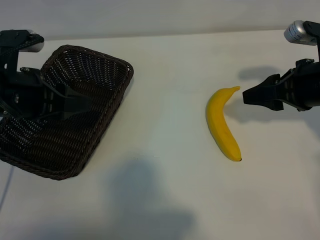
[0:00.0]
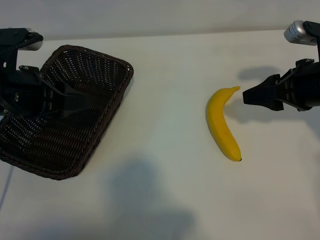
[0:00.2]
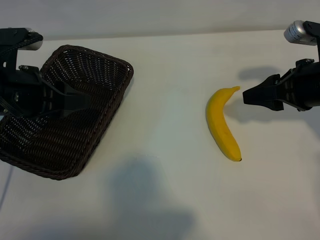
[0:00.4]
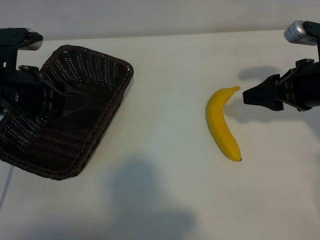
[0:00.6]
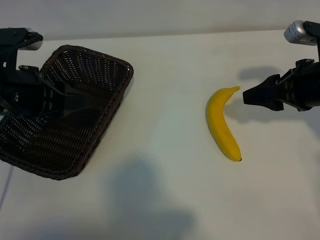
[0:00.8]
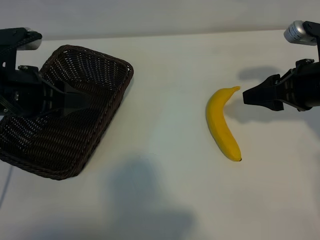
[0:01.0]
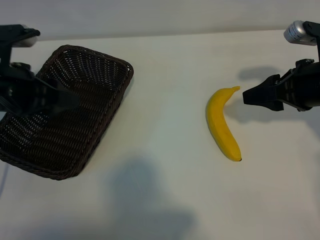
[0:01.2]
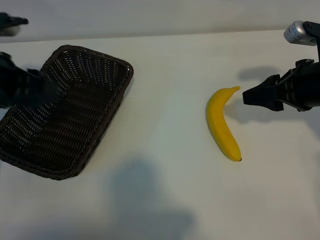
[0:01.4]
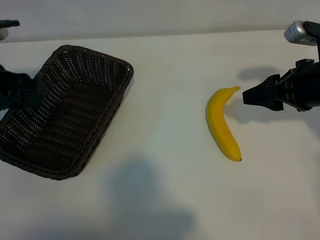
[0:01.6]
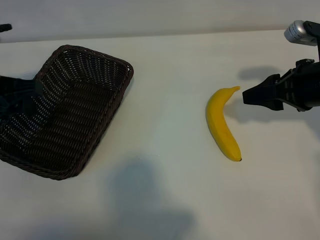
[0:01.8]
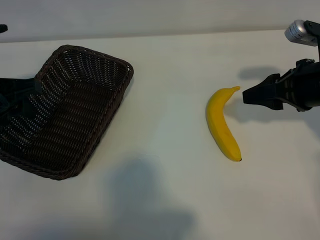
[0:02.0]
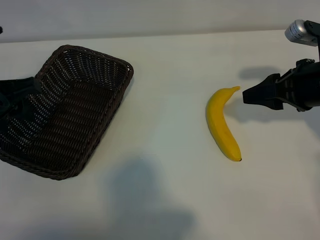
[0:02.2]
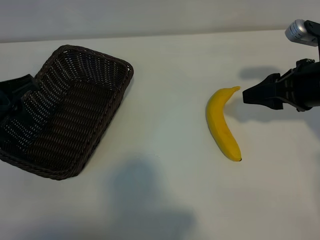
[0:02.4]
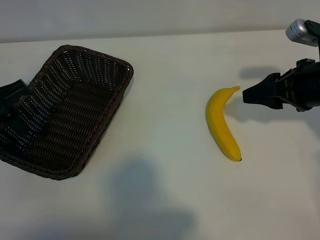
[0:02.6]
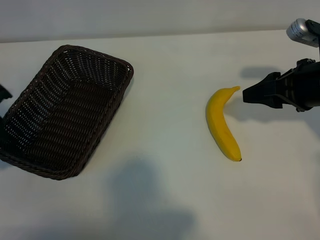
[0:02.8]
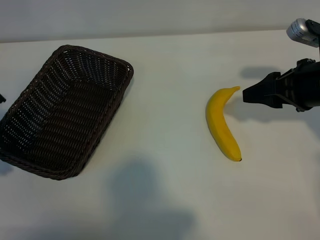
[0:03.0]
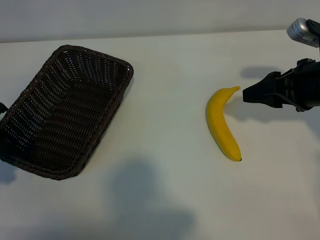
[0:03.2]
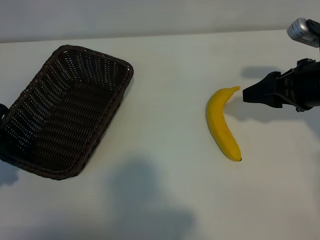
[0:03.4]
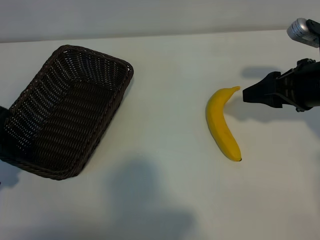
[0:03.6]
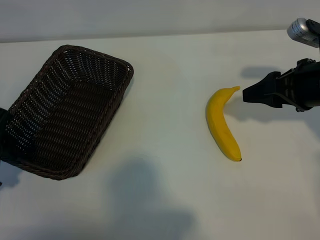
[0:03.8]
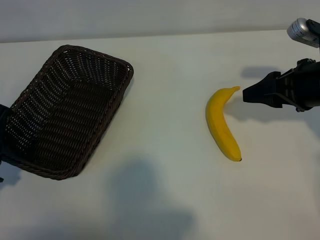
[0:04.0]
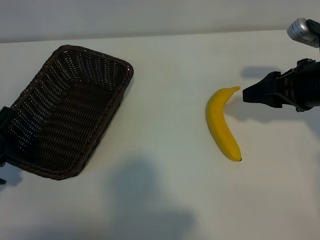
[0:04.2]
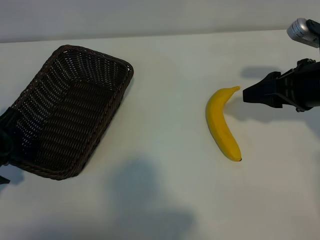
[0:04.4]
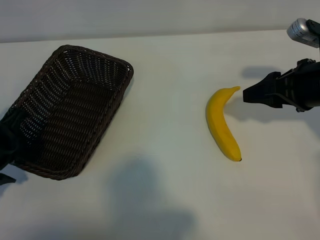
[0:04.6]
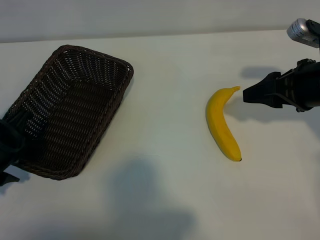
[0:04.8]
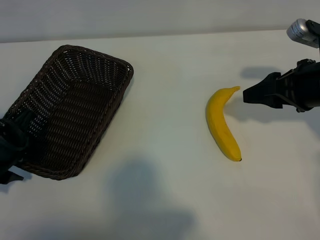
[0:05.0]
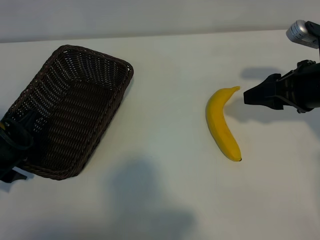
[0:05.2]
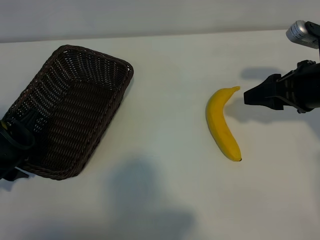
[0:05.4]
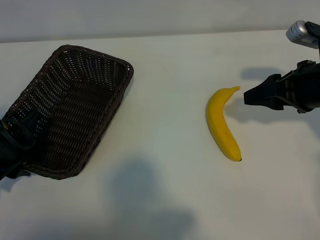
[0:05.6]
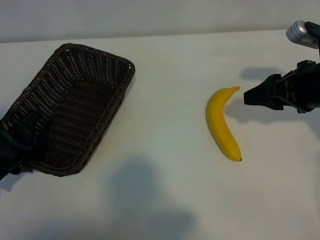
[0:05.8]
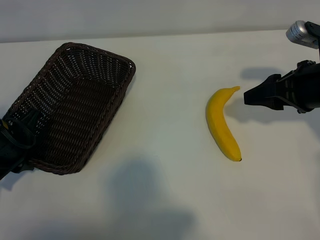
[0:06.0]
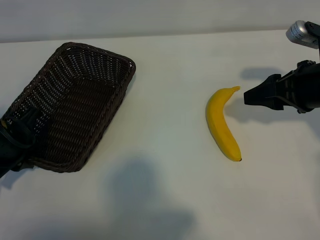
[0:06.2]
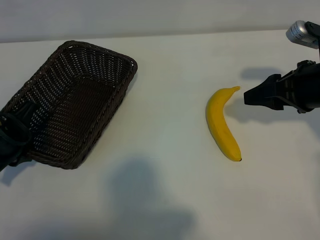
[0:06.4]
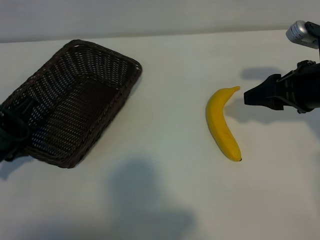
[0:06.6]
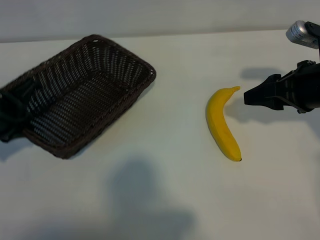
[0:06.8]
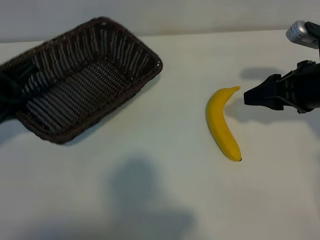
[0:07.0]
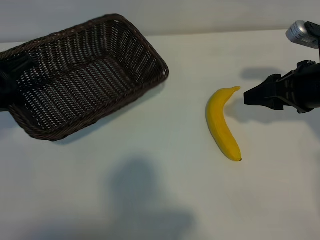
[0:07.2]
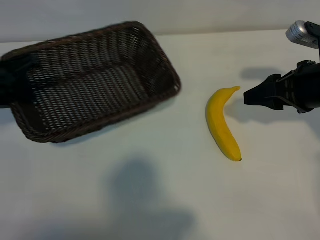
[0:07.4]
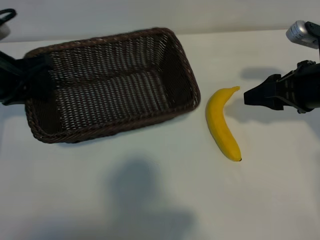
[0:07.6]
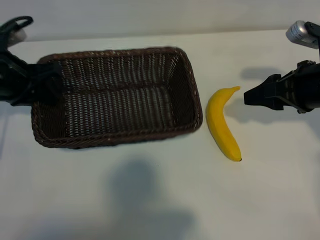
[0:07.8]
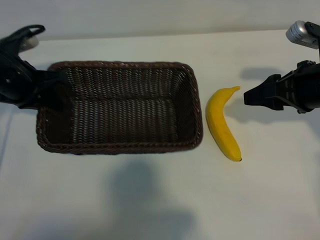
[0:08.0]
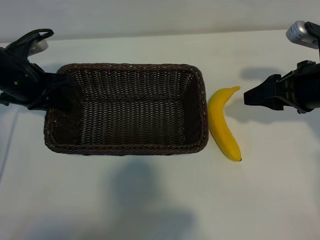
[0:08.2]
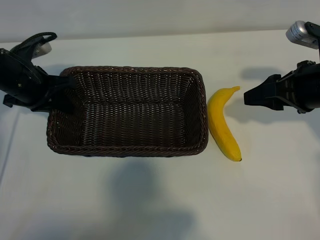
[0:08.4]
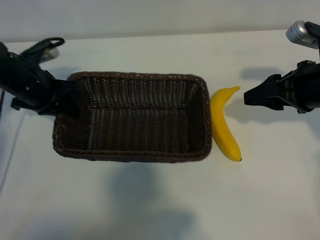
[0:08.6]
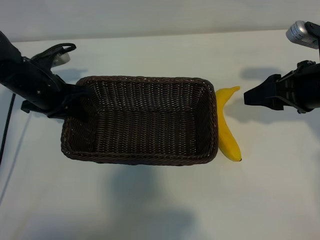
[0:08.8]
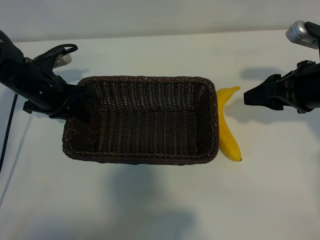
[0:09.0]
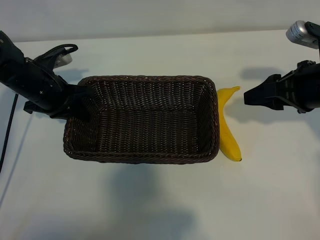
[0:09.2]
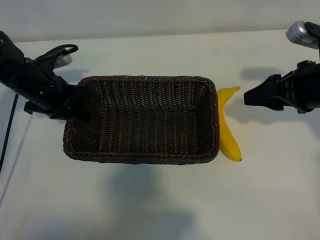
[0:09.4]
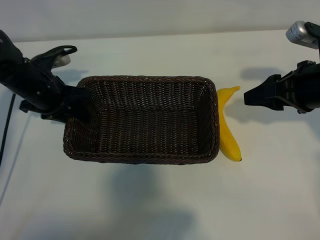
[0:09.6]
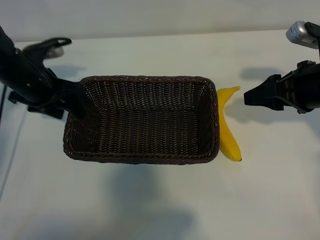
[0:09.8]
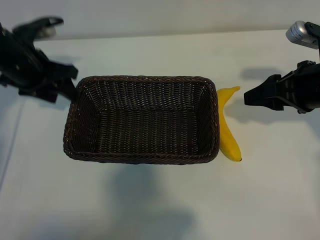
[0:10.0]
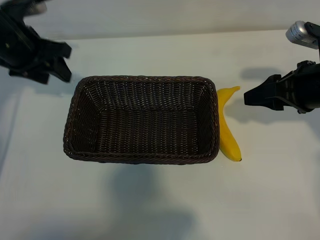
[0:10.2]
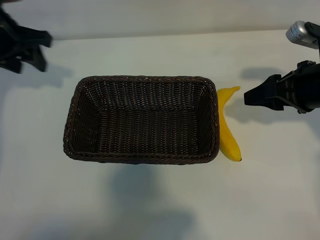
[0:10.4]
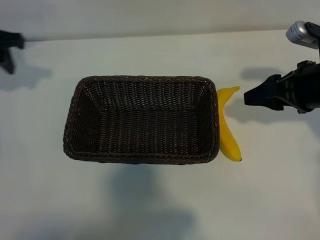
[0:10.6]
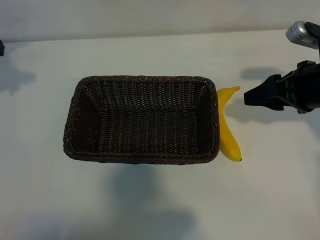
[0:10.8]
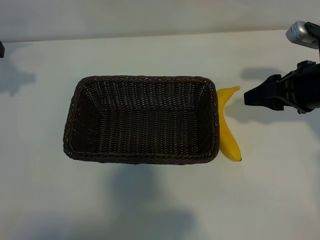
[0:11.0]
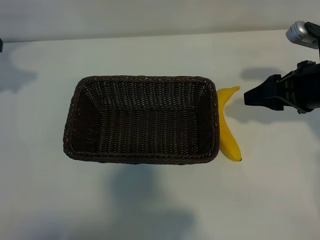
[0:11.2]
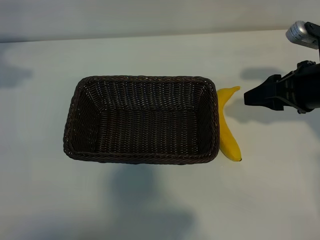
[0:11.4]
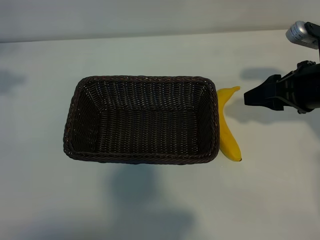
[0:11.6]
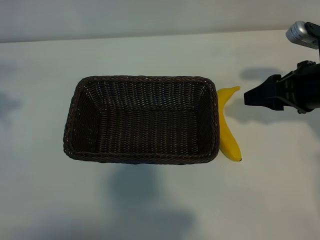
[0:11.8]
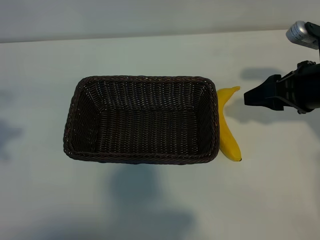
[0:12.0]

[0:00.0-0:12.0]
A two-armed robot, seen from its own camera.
Task of the whole recording: pick up the banana and put it into the basket.
Step, 0:00.0 to 0:06.0: Grasp the basket with the left gripper.
Step, 0:06.2 to 0:10.0: Place the basket in the center of the table with the left gripper.

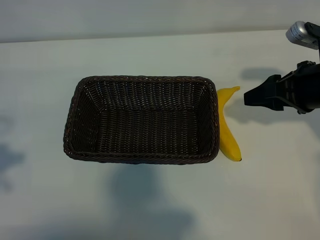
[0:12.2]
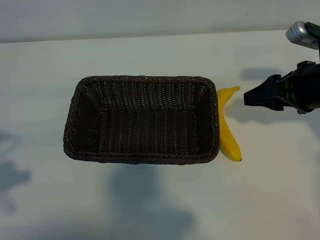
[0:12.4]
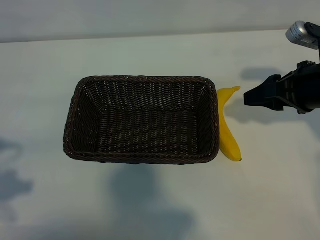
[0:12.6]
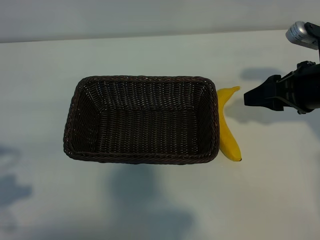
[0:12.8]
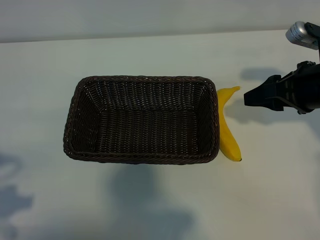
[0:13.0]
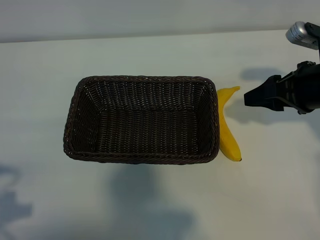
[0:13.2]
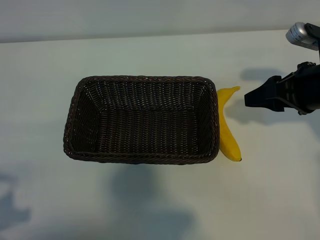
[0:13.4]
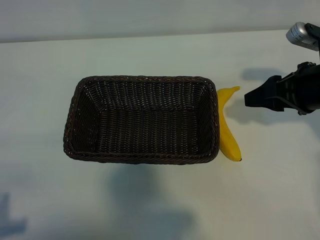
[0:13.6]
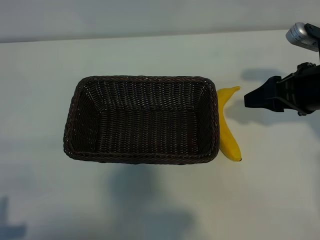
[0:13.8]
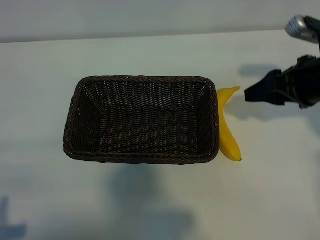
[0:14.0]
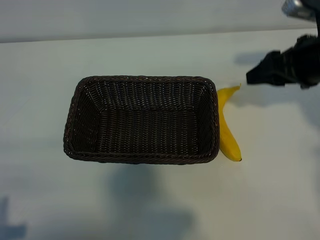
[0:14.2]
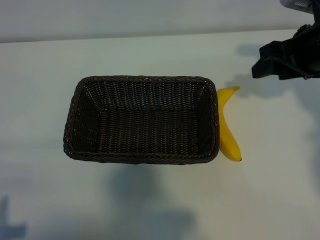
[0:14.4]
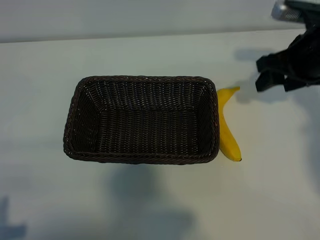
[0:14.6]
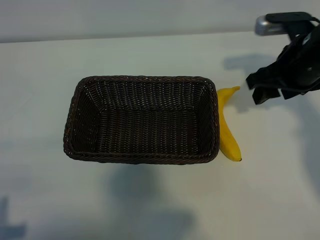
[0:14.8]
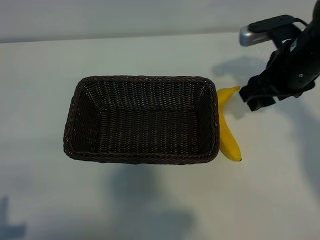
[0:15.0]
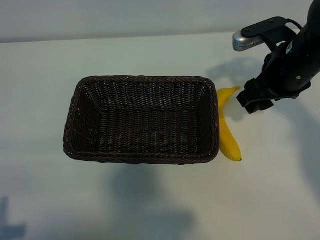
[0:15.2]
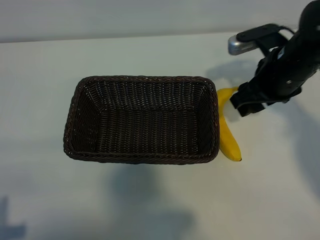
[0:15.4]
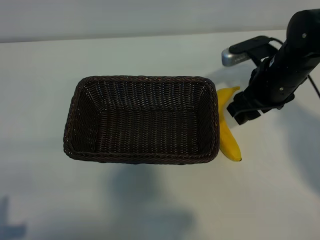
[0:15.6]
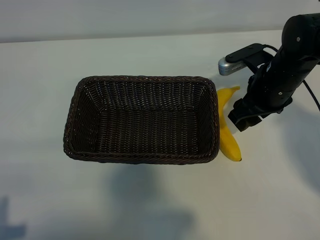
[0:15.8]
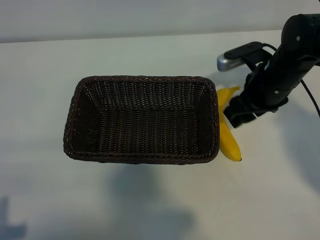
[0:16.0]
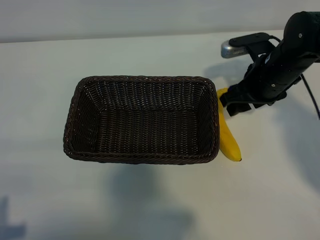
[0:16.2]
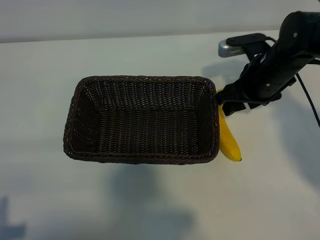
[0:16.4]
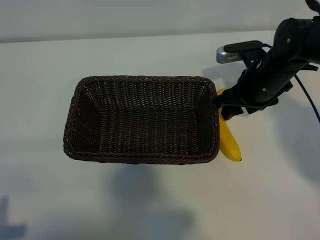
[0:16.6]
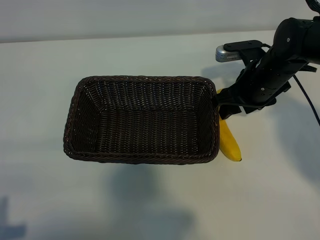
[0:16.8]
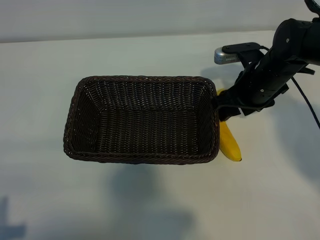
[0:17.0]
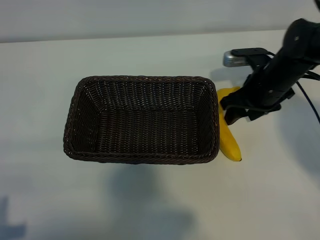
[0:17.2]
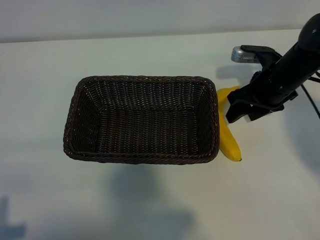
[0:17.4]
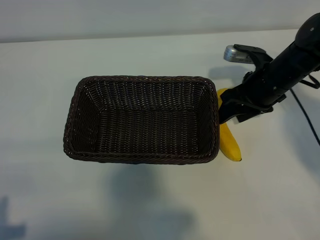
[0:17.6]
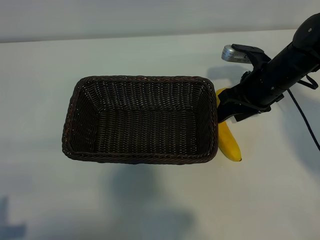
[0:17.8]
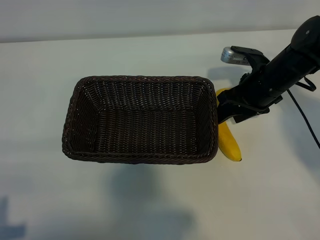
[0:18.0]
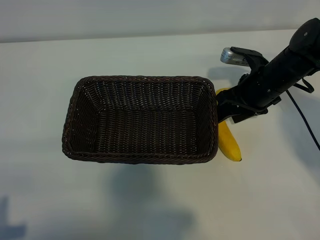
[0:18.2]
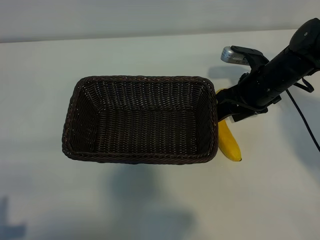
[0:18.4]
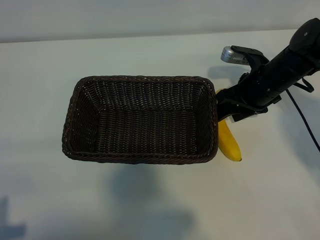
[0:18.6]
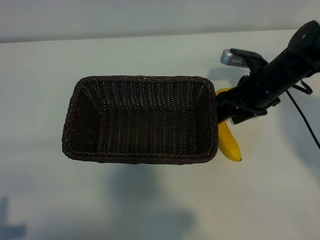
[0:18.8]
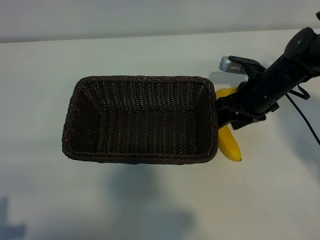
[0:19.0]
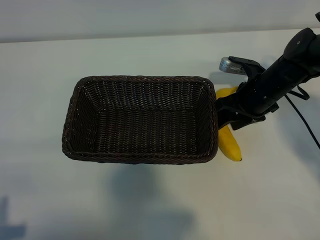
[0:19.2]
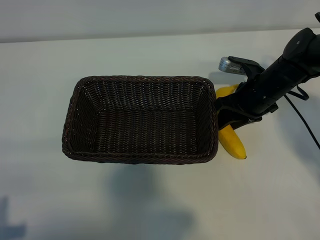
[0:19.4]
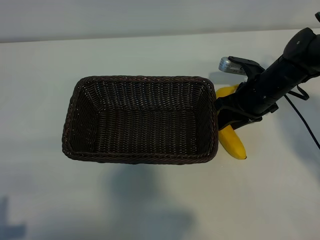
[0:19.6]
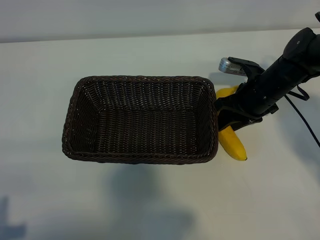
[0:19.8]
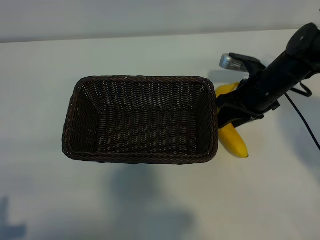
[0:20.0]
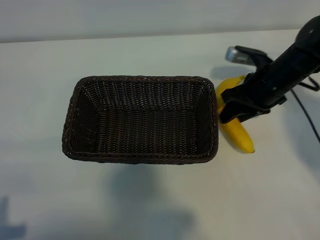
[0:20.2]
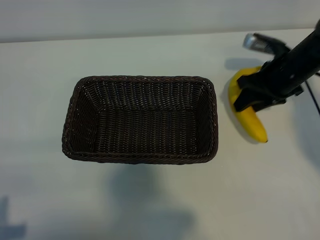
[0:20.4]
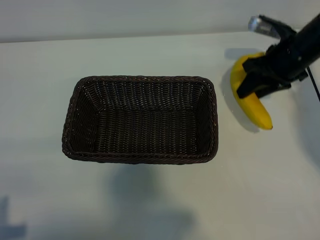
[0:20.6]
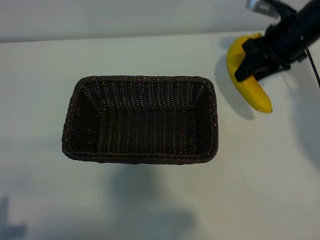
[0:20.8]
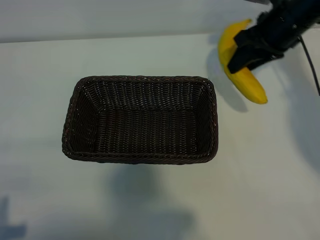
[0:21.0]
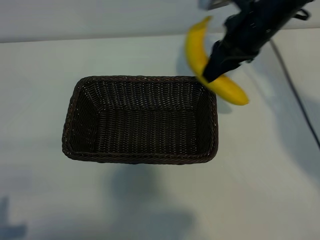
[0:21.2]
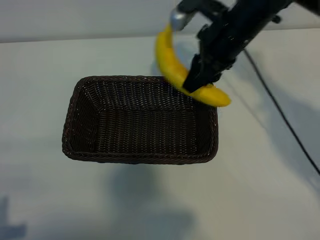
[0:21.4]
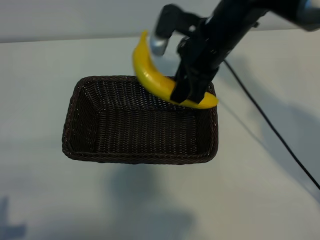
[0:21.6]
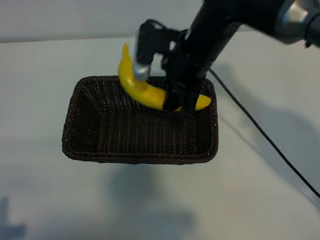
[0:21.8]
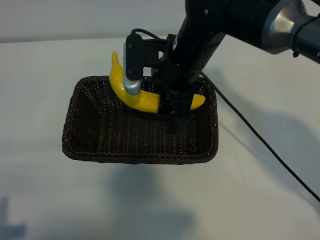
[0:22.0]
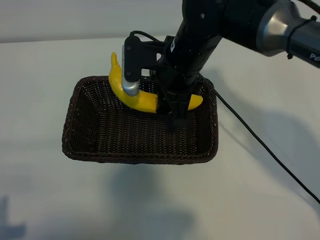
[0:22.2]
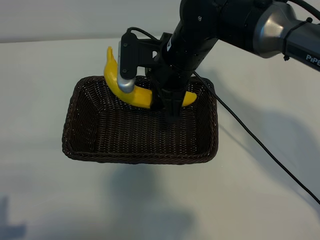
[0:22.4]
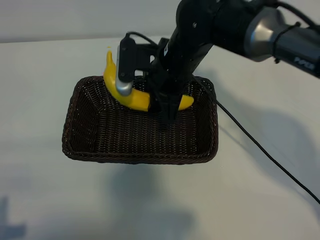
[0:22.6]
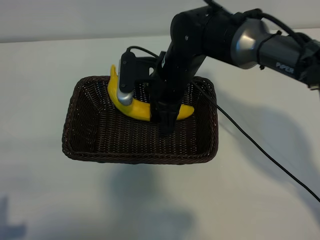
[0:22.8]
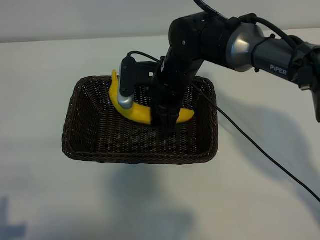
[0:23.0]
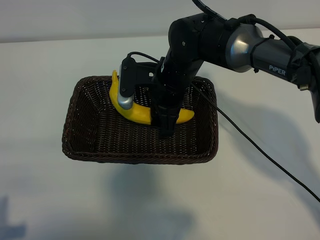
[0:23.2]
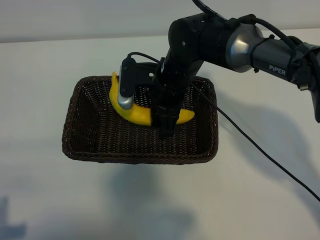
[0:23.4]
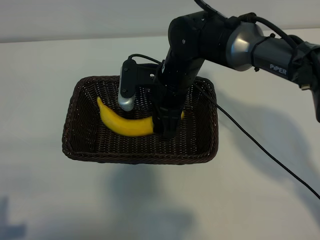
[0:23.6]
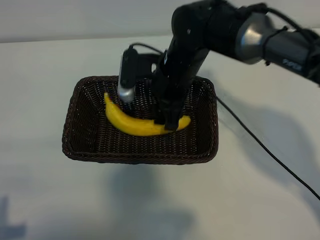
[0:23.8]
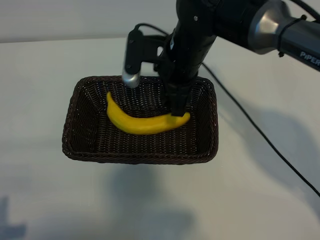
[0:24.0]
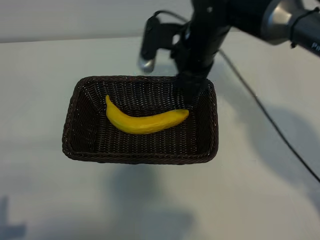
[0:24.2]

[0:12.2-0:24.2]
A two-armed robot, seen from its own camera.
Task of the whole recording: pick up the banana and put it into the basket.
Step, 0:12.2 to 0:19.6: Grasp the banana with right gripper.
Step, 0:19.8 to 0:23.8: Place the banana in the basket with right gripper.
